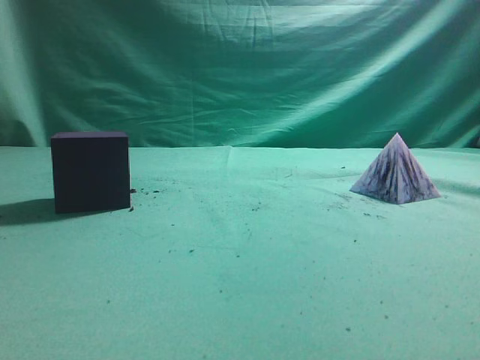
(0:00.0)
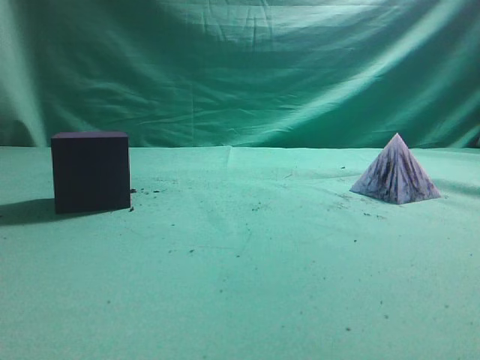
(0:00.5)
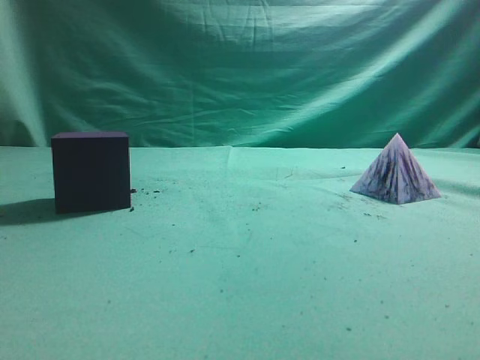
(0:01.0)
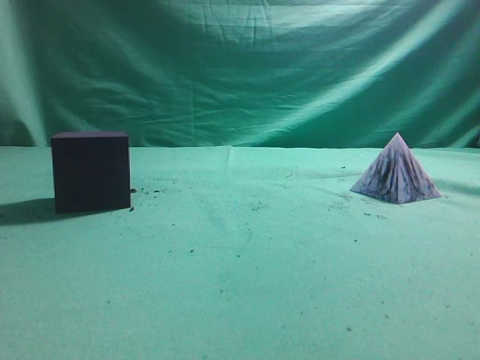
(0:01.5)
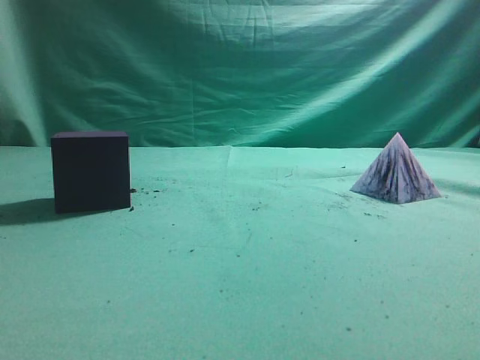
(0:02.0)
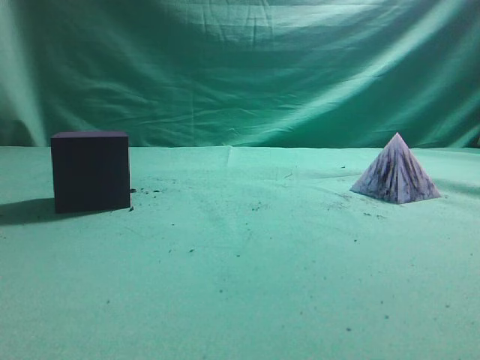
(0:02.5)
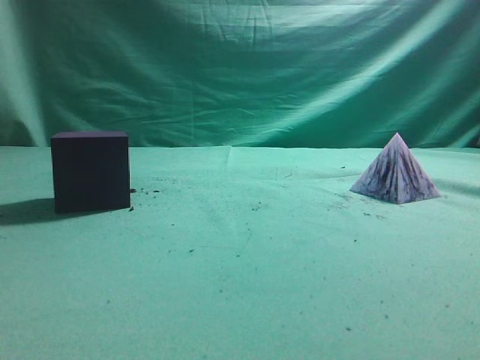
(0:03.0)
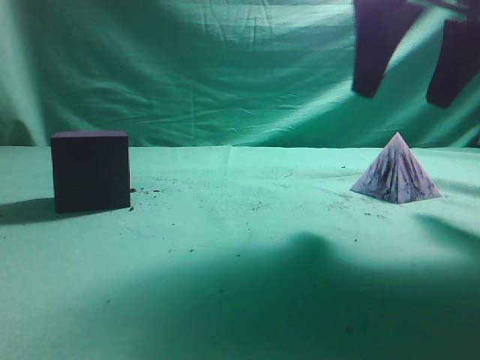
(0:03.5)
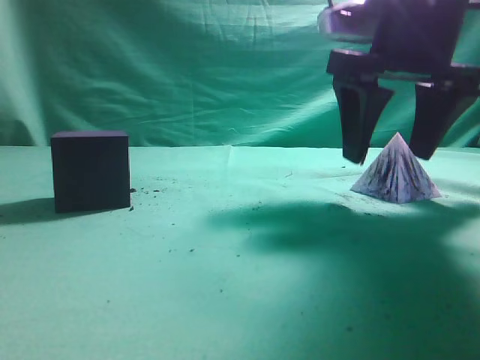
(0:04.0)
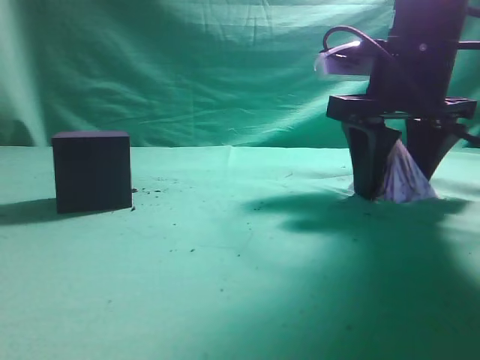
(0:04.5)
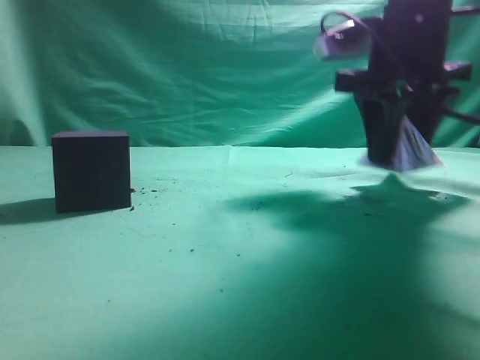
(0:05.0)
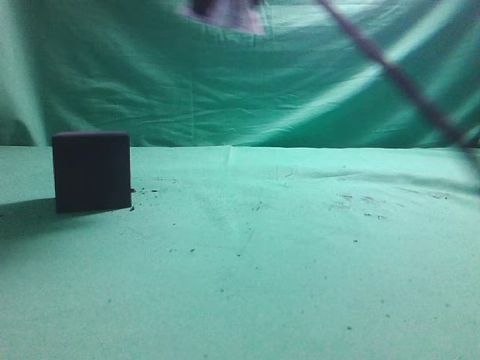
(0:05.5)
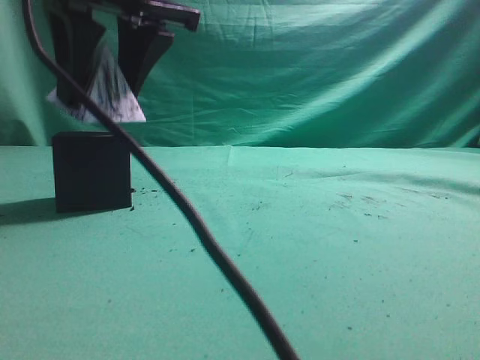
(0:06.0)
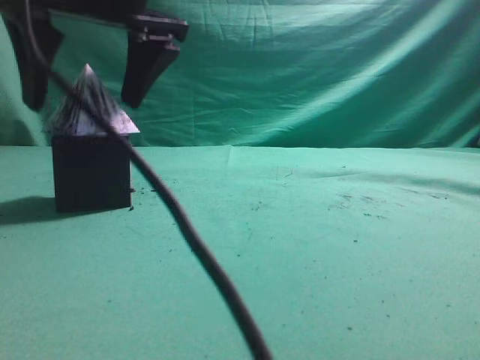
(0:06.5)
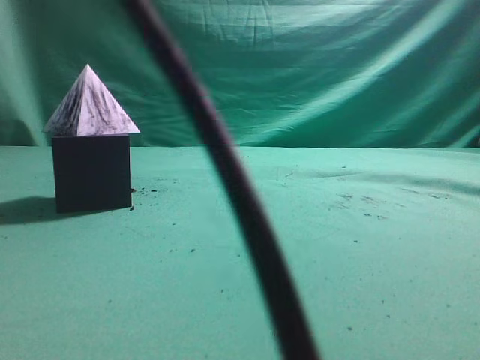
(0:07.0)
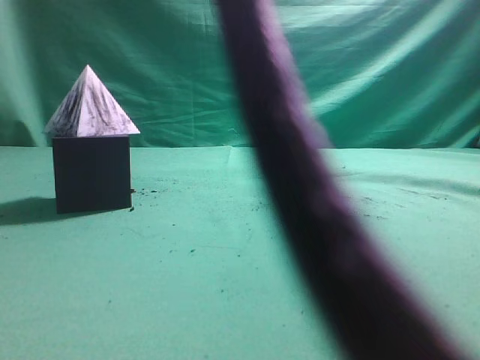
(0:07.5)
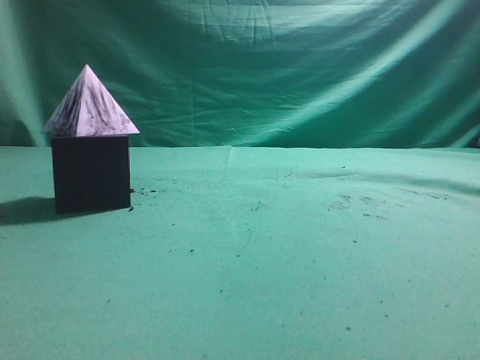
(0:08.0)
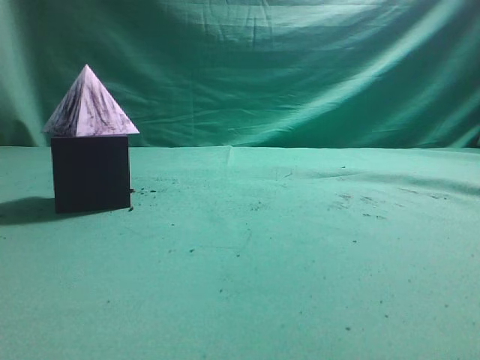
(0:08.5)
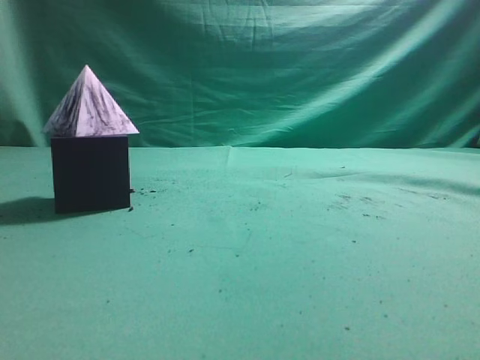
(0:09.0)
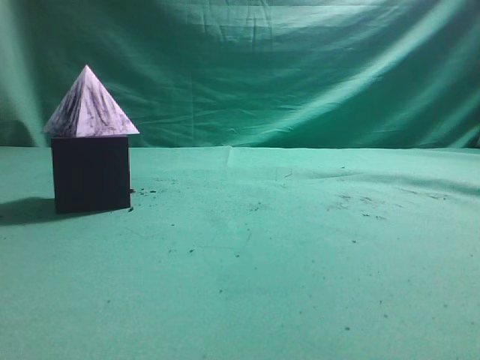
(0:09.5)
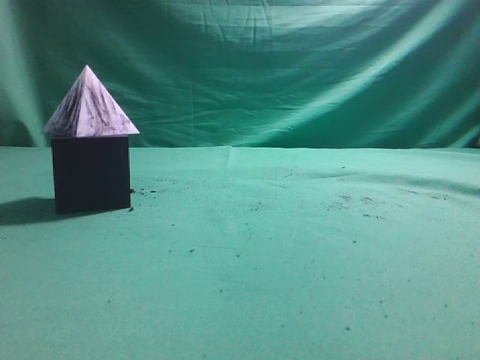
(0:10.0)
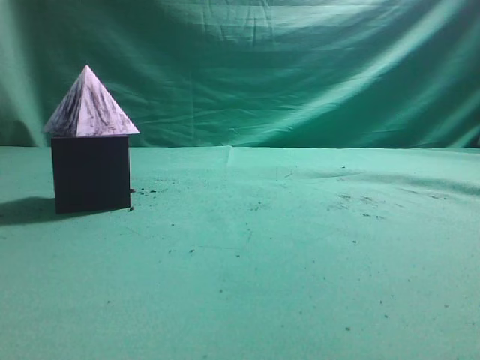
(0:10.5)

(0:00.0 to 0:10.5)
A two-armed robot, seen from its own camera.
Task of the whole recording: pick up the square pyramid from the table and place it on the cube block.
Step, 0:00.0 - 0:05.0: Grasp the triangular block.
Step, 0:05.5 - 0:06.5: Place the block onto the cube-shaped block.
0:02.0 - 0:04.0: The right gripper is displaced forward and to the left by approximately 30 cm, and opens up.
0:04.0 - 0:06.5: The right gripper goes approximately 25 cm to the left, and closes and opens again.
0:06.5 - 0:08.5: The right gripper is displaced to the right, backward and upward by roughly 35 cm, and closes.
